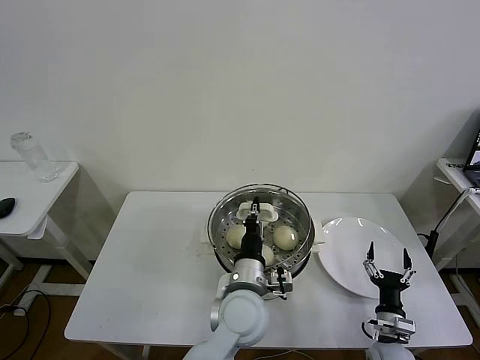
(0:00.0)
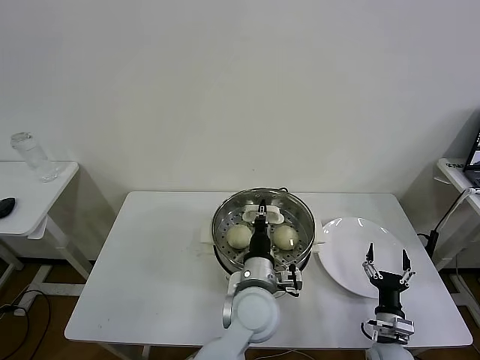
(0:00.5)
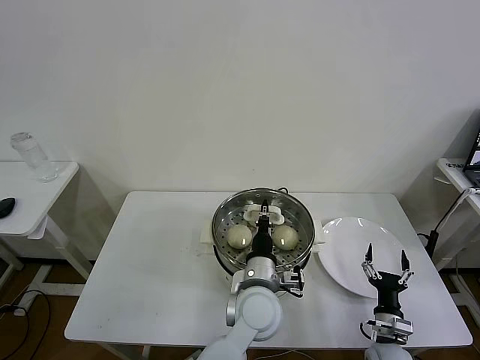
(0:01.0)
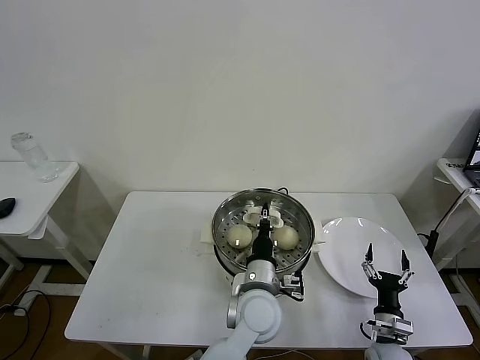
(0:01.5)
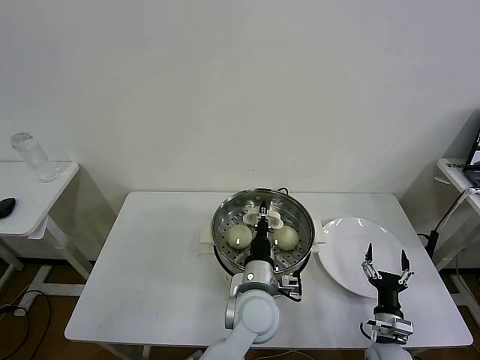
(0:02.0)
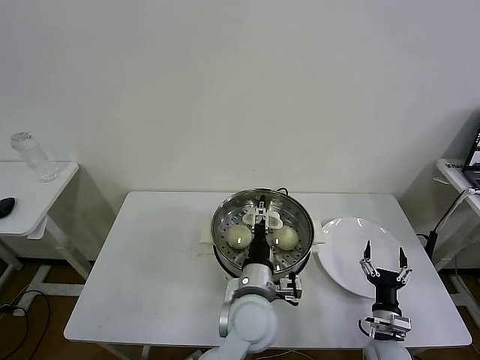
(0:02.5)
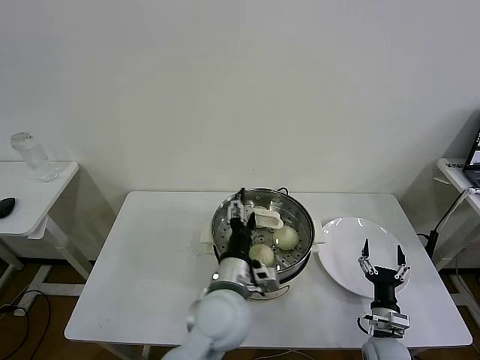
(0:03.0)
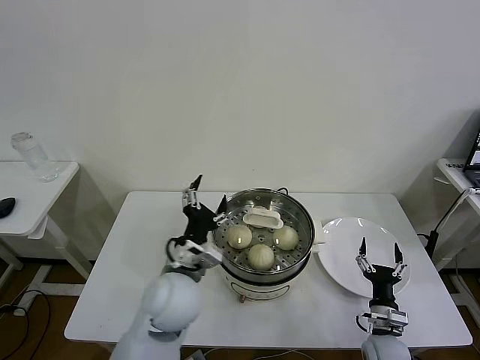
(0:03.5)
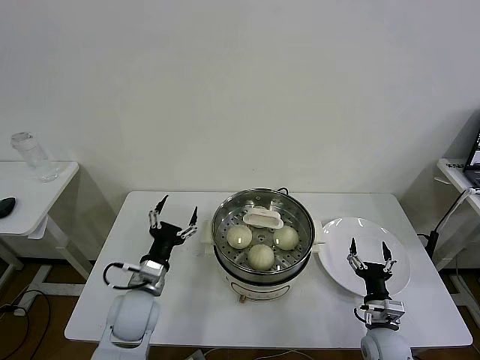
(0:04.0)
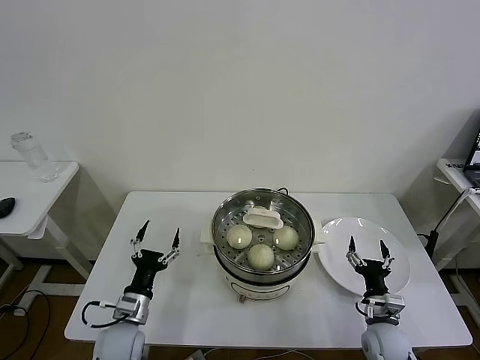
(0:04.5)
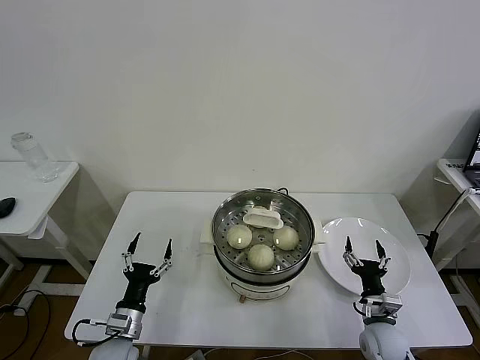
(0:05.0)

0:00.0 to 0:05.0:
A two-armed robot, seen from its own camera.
Task of the whole recording: take steamed baozi put them in steamer then cover it.
Step, 0:00.0 to 0:02.5: Place the pot lid on the steamer with left gripper.
0:00.0 to 0:02.5: The left gripper opens up.
0:02.5 to 0:05.0: The left gripper moves to the left and downward, approximately 35 cm.
